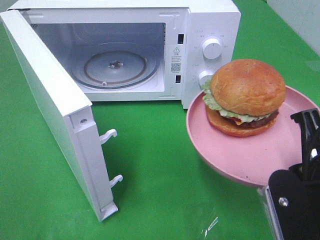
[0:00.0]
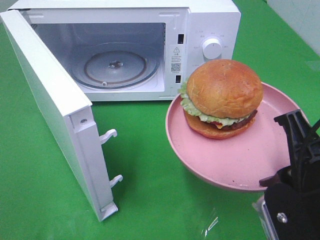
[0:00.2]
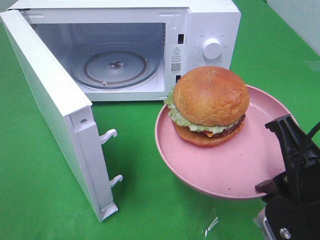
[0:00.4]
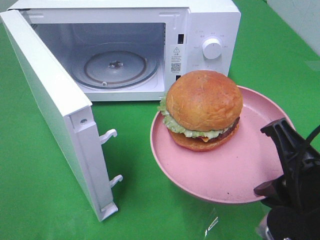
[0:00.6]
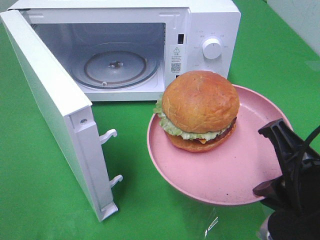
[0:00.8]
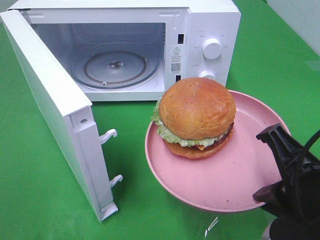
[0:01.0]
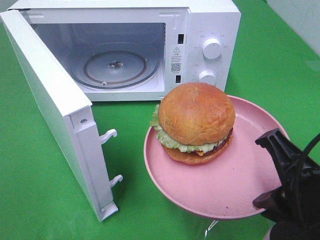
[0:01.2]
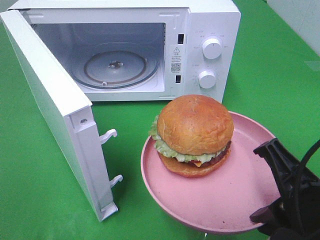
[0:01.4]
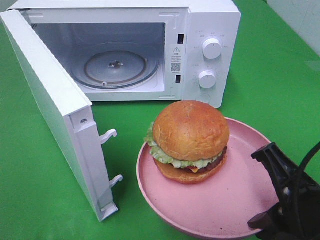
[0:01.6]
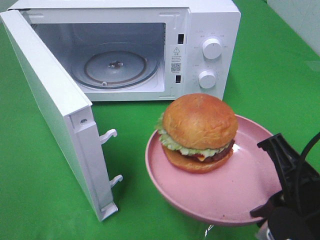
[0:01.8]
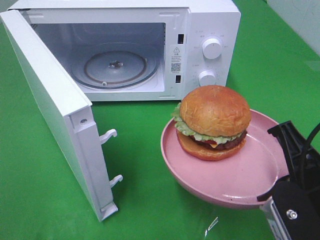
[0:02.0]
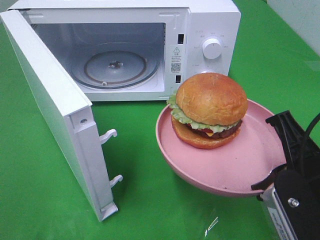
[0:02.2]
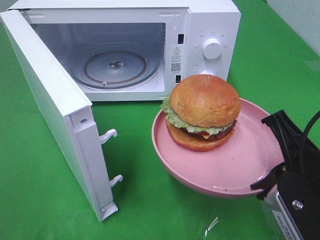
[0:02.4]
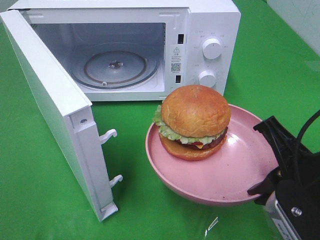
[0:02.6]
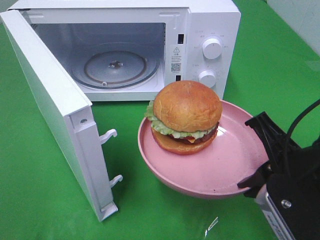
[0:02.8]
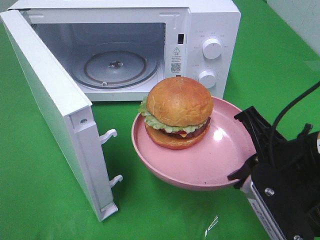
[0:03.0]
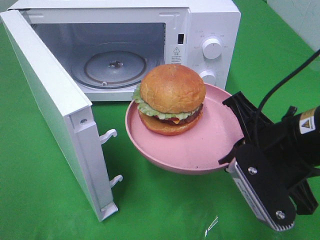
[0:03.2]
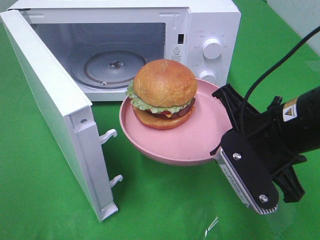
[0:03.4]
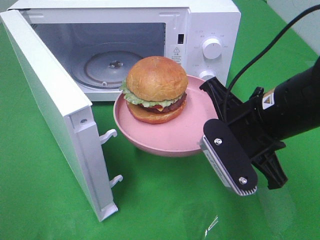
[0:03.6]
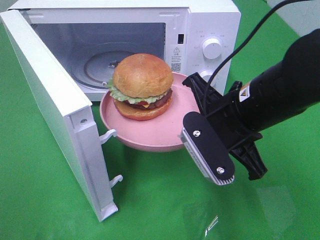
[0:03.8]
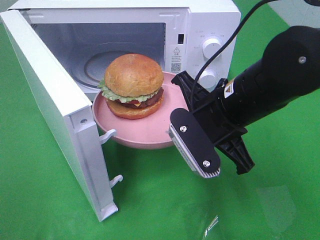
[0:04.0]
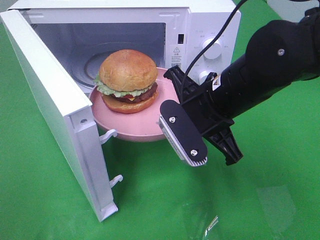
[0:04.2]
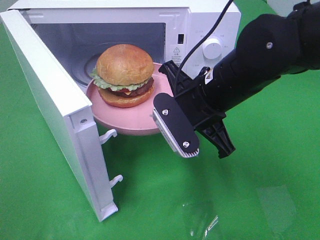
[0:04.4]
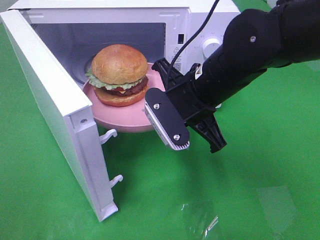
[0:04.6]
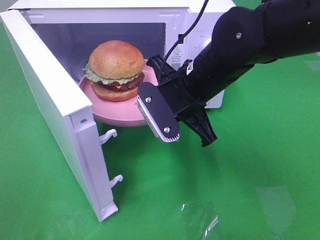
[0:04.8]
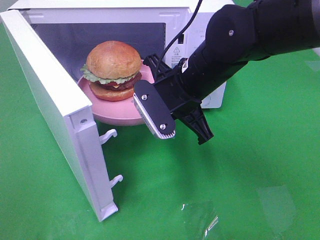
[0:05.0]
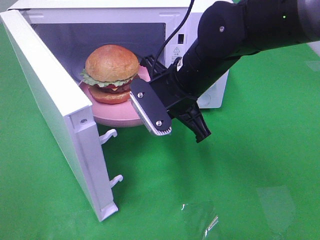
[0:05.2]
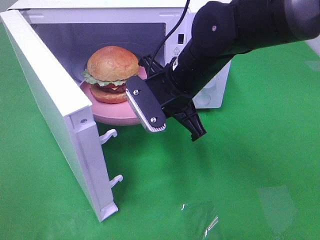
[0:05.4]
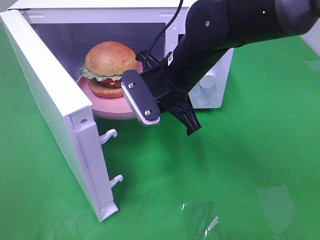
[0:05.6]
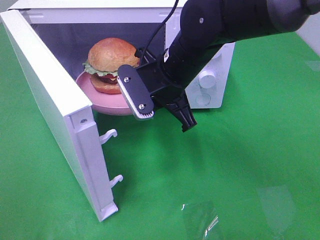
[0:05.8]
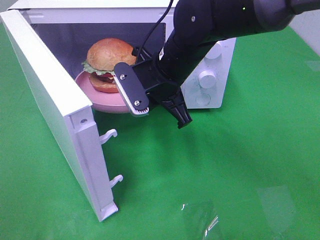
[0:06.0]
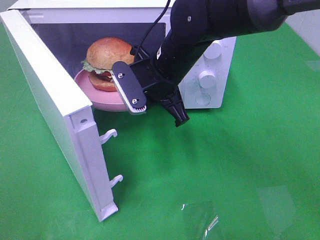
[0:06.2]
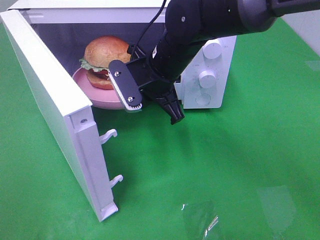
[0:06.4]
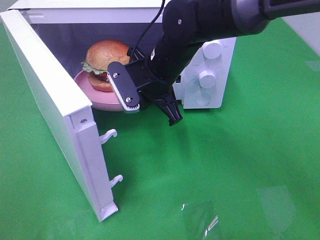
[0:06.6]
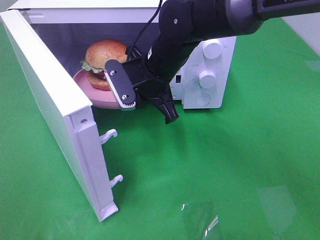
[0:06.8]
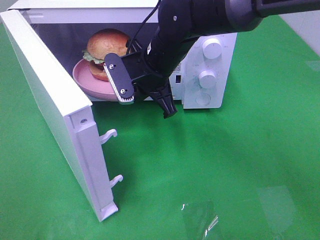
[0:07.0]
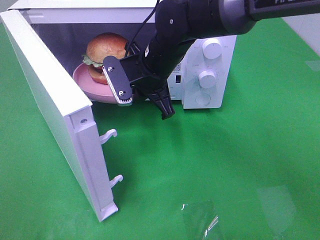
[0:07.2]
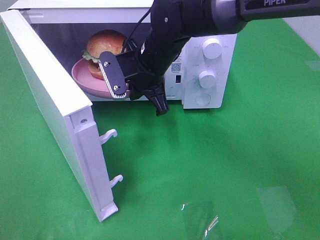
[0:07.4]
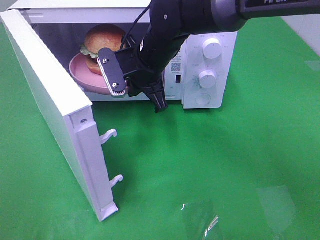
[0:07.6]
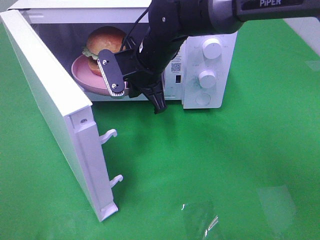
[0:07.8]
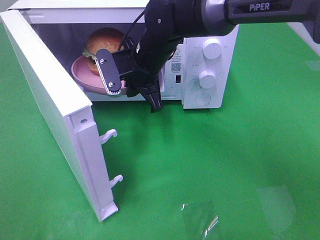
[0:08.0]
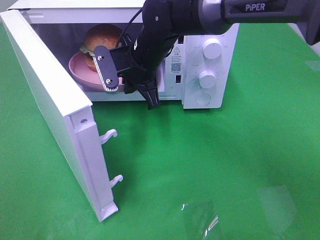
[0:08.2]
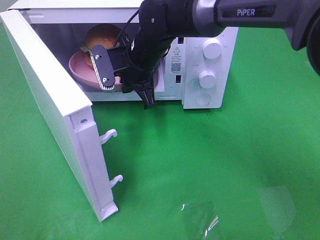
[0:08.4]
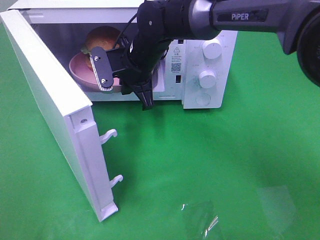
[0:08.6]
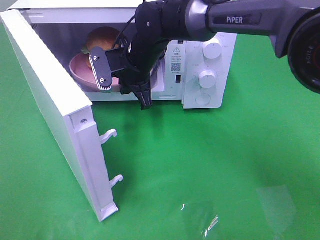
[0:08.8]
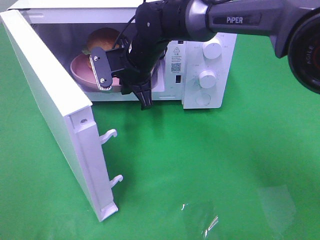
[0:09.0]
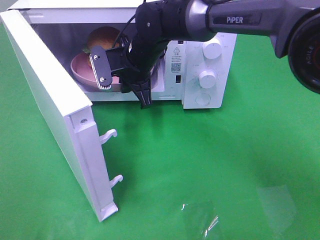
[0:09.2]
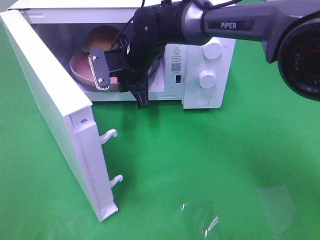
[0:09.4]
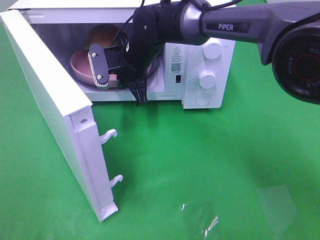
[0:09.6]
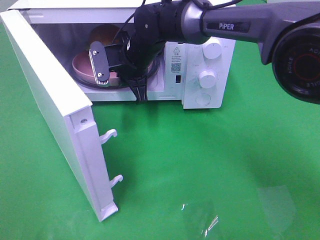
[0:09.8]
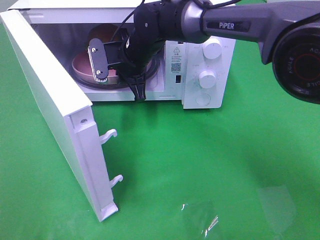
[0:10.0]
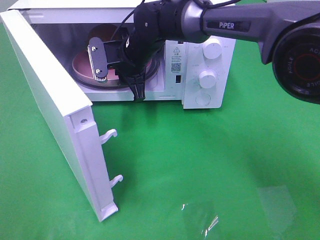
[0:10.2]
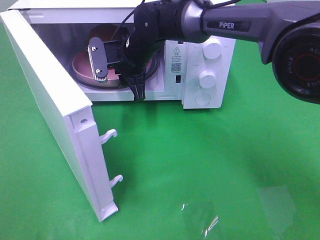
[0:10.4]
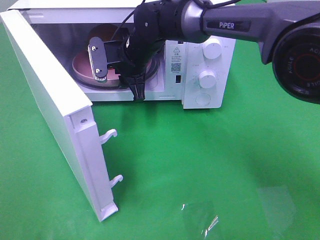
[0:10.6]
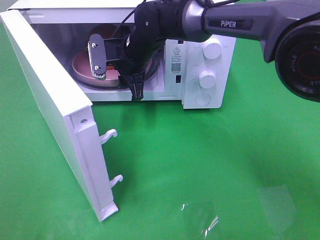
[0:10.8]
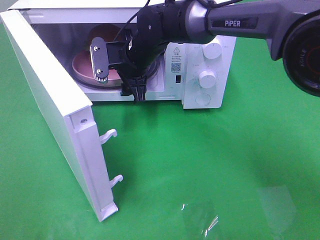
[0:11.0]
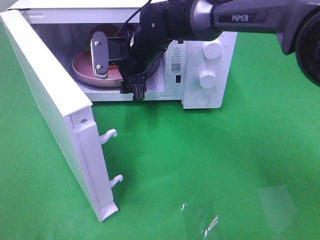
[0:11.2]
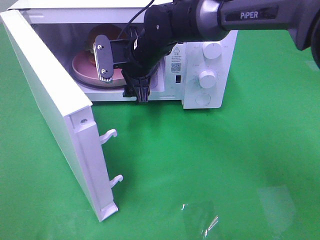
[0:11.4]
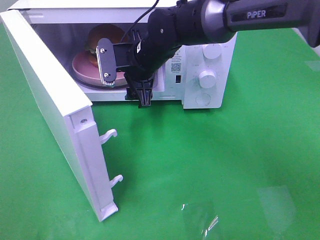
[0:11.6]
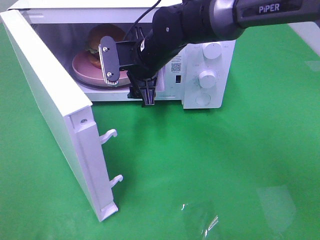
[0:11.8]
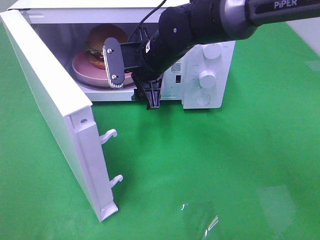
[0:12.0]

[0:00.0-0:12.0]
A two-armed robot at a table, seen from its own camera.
Task of the whole recording: Heat the burger.
Step, 0:00.0 to 0:10.0: Right hand: place the plate in the microwave.
0:01.6 to 0:03.0: The right gripper goes some 10 cm forward.
0:03.0 to 0:04.4: The right gripper is displaced forward and to the left by roughly 15 cm.
0:04.4 to 0:06.0: The right gripper moves forward and to the left, about 10 cm.
0:06.0 to 0:07.6: The right gripper shifts by approximately 5 cm.
0:07.6 to 0:09.0: There are only small adjustments of the grippers.
0:09.0 to 0:10.4: The right gripper opens up.
0:10.4 to 0:12.0: The right gripper changes place by approximately 5 cm, and opens up.

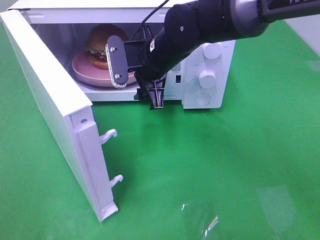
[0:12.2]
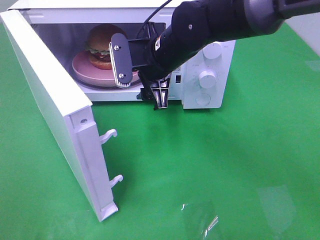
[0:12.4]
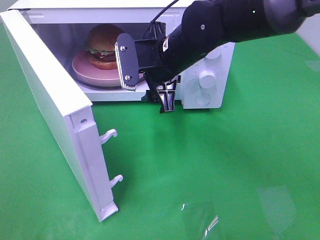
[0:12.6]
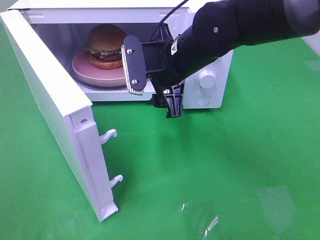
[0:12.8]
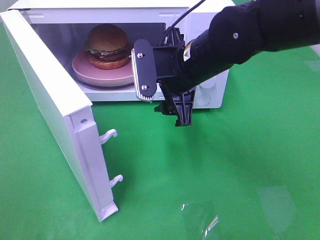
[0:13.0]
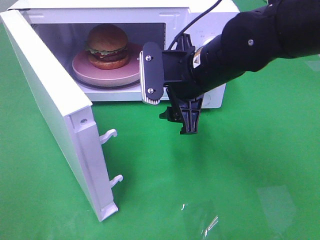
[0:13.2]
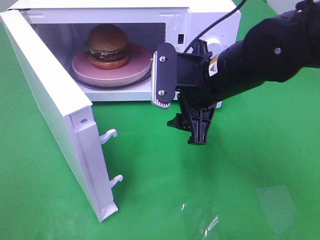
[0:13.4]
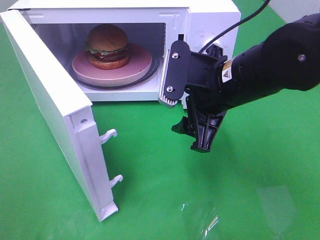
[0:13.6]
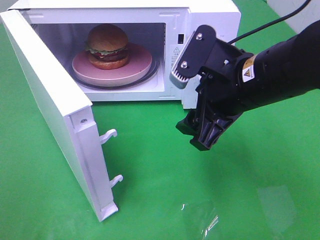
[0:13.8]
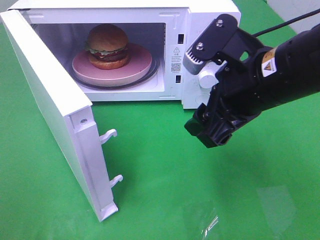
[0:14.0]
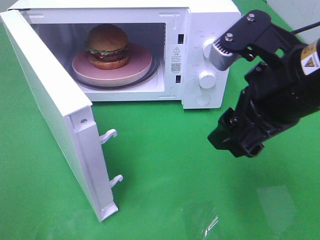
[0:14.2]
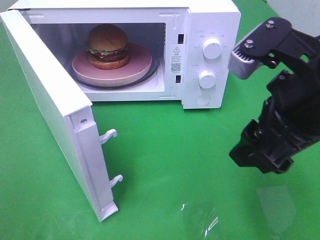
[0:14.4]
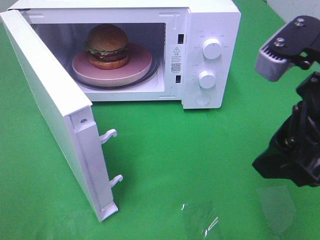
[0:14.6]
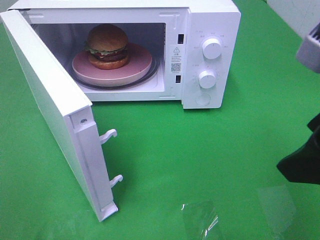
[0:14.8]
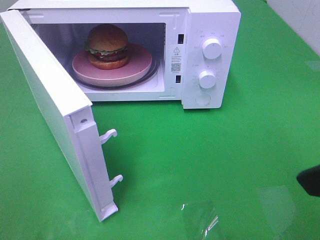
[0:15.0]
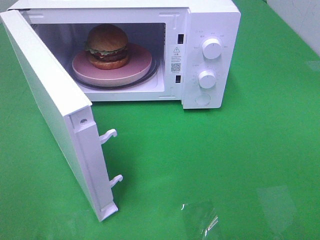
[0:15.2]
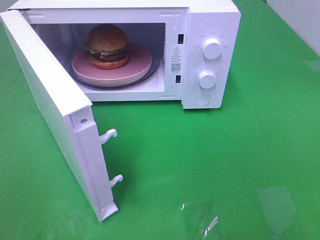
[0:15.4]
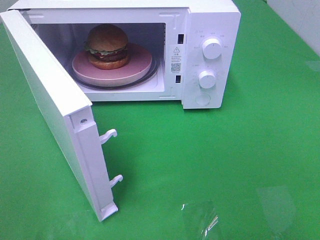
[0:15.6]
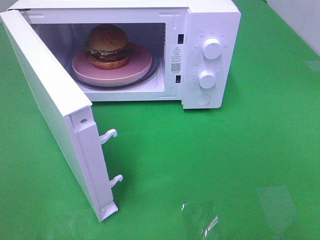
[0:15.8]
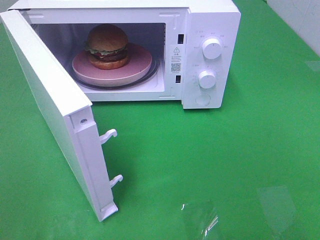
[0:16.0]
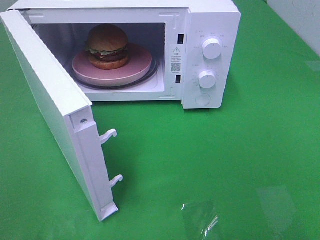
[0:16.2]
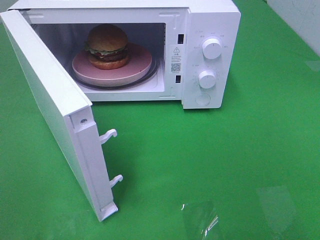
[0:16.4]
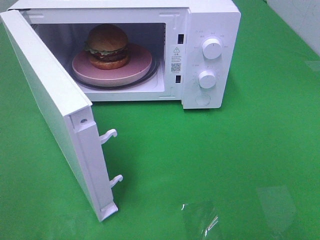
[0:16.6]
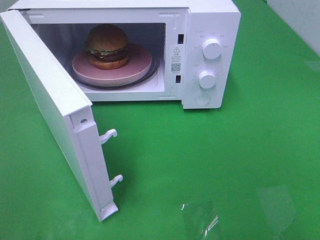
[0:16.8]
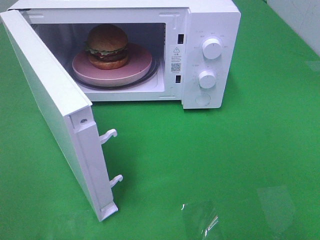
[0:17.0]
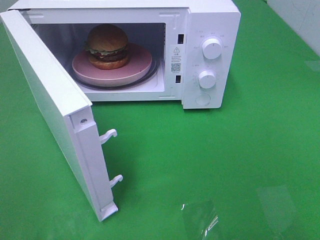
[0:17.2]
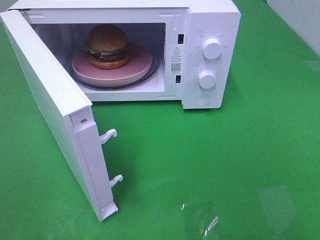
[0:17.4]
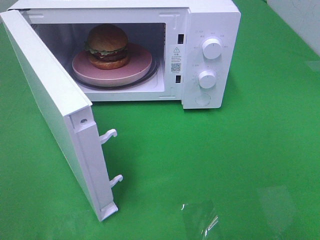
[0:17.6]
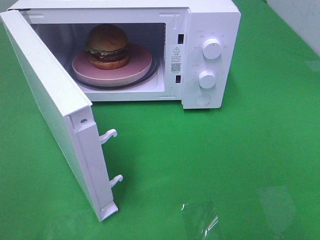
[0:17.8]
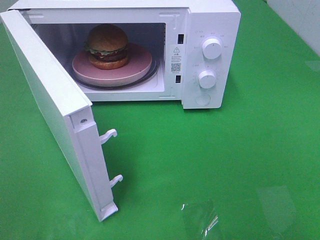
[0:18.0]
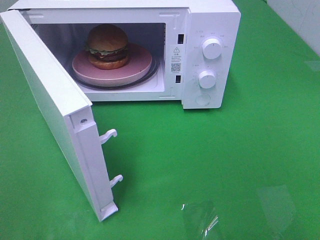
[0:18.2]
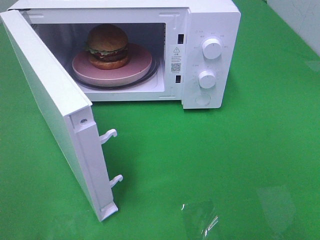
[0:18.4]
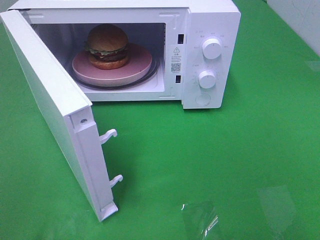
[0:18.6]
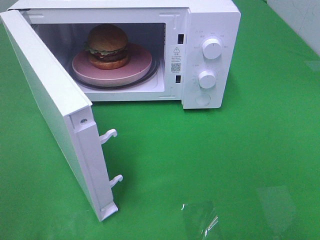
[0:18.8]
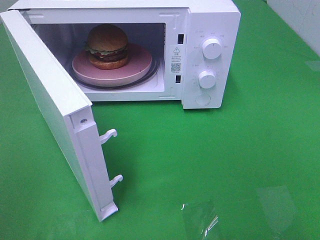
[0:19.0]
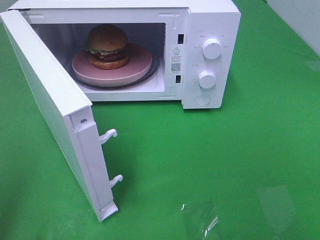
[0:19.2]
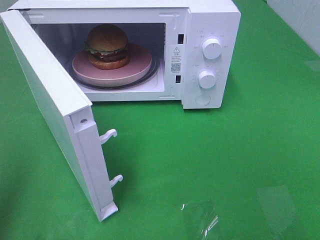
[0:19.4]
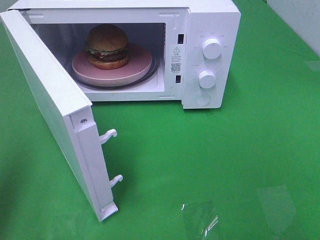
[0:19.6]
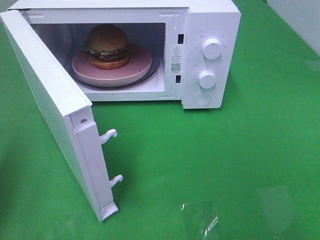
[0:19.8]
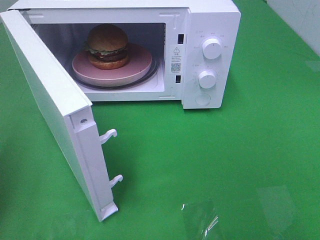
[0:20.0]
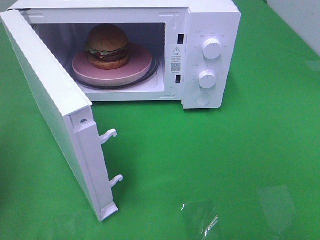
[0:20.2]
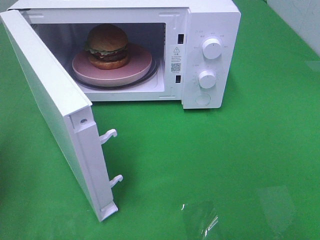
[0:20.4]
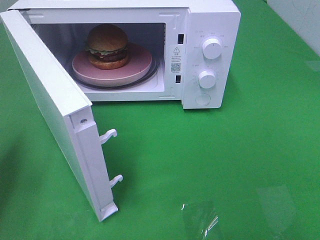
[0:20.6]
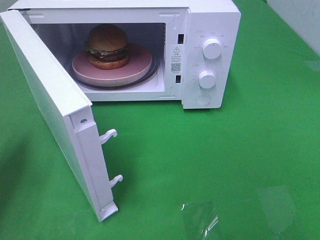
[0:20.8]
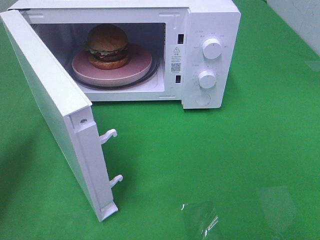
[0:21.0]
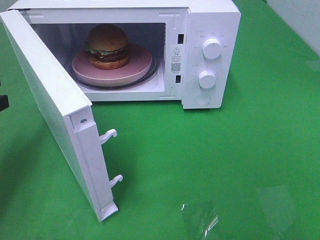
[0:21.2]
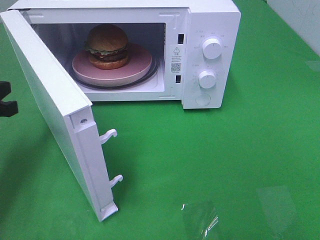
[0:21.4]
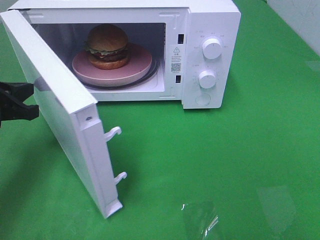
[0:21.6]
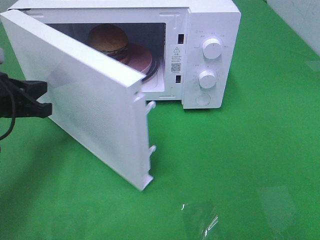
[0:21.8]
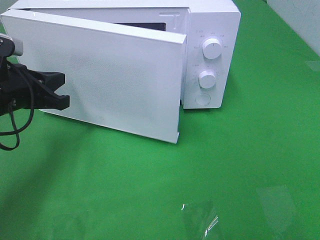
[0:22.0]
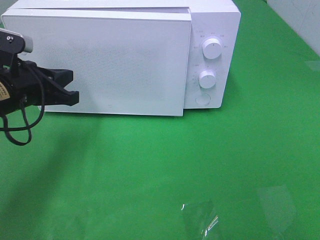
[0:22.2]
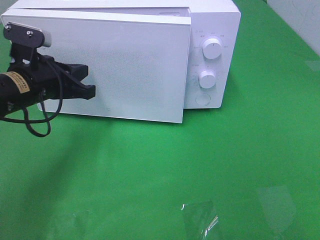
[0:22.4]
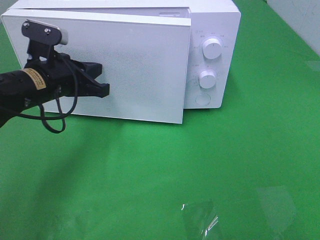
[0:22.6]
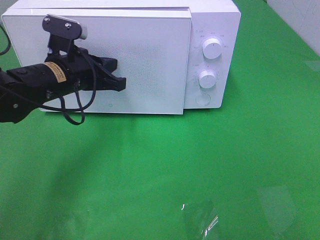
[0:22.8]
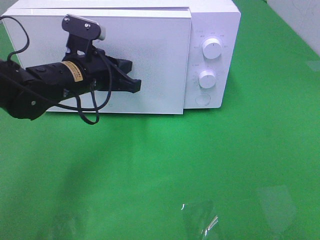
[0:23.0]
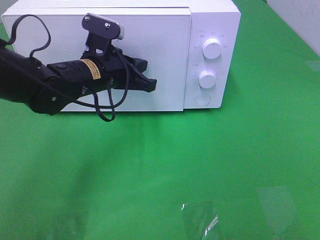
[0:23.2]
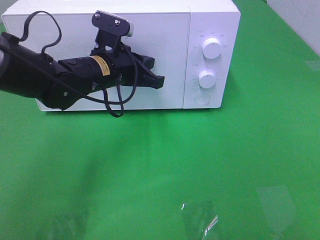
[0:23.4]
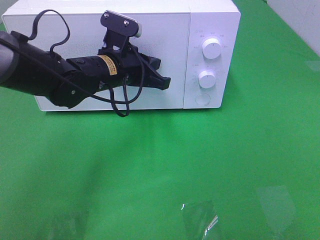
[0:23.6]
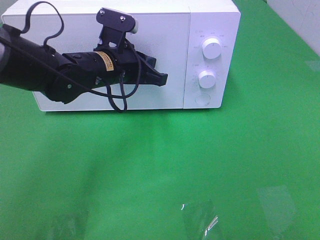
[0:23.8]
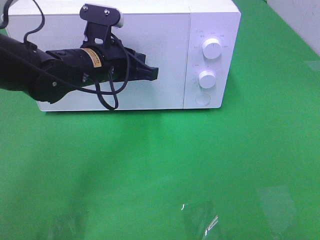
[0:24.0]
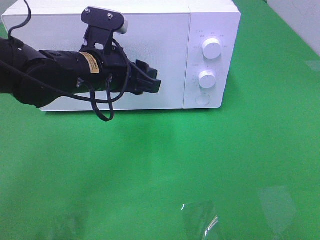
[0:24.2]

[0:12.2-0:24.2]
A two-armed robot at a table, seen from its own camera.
Task of the whole recording: Heat the burger.
Step, 0:12.2 to 0:23.6: Left hand: close the microwave door.
0:12.2 to 0:13.8: The right gripper is displaced backward and to the right by about 15 cm.
0:13.8 to 0:15.2: The right gripper travels backward, to the right and upward by roughly 20 cm.
0:16.6 to 0:18.2: The two grippers keep their place.
0:18.2 to 0:19.8: The left gripper moves forward, some 15 cm, and closes.
0:19.8 to 0:21.2: The left gripper goes roughly 15 cm forward and downward.
0:21.2 to 0:22.6: The left gripper is displaced to the right and forward by some 15 cm.
0:22.6 to 0:24.2: The left gripper moves to the right, roughly 10 cm, and opens.
